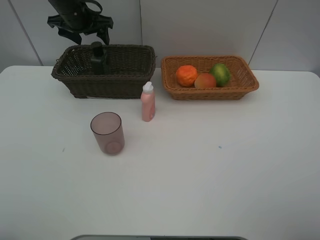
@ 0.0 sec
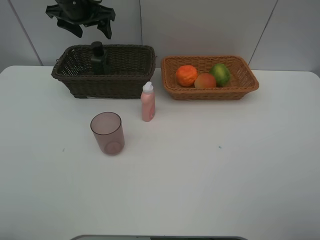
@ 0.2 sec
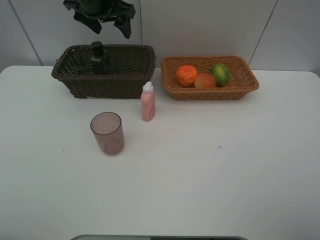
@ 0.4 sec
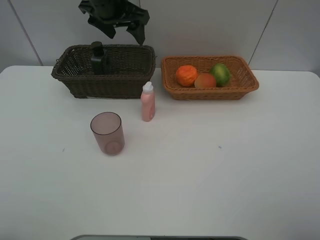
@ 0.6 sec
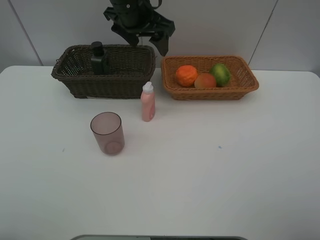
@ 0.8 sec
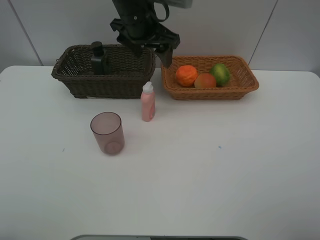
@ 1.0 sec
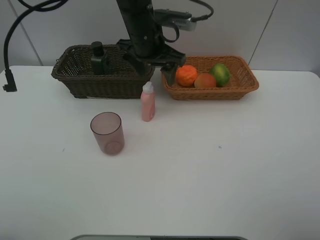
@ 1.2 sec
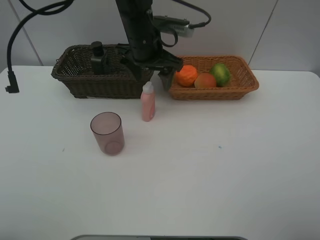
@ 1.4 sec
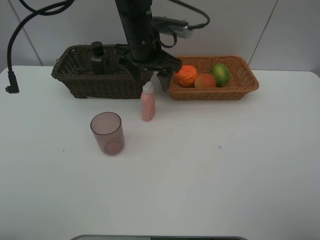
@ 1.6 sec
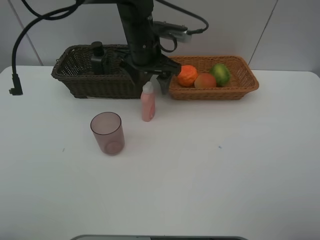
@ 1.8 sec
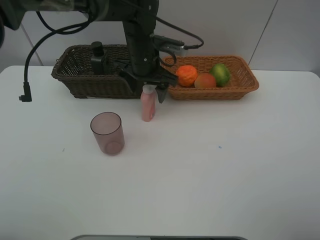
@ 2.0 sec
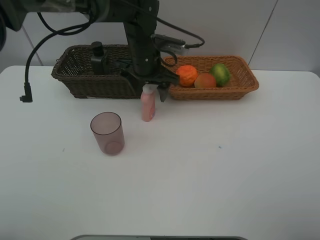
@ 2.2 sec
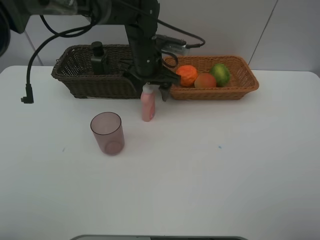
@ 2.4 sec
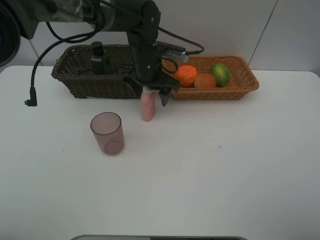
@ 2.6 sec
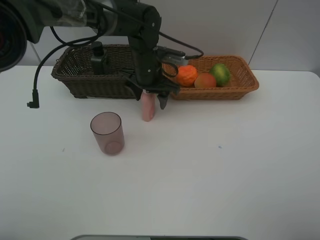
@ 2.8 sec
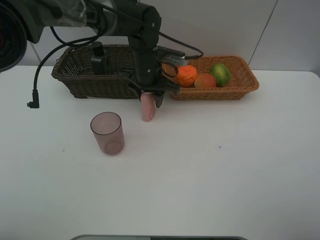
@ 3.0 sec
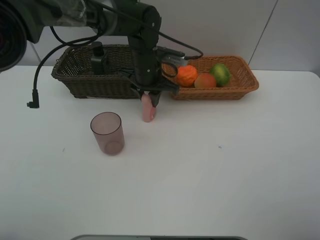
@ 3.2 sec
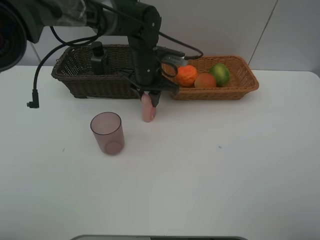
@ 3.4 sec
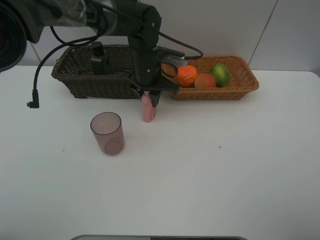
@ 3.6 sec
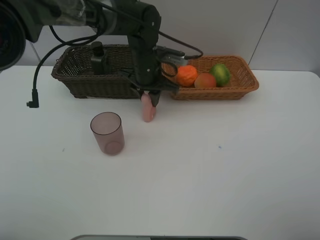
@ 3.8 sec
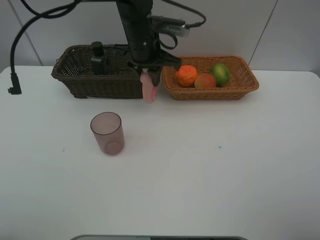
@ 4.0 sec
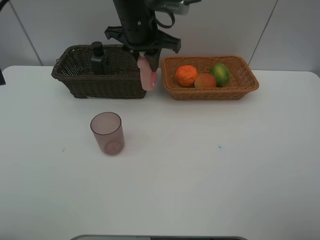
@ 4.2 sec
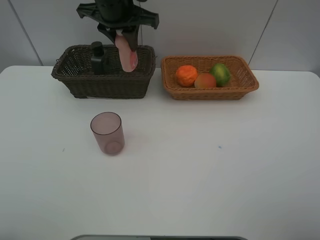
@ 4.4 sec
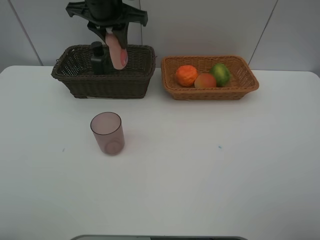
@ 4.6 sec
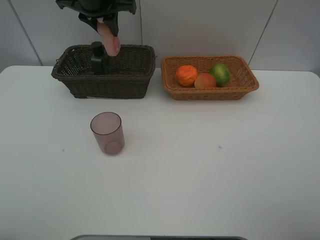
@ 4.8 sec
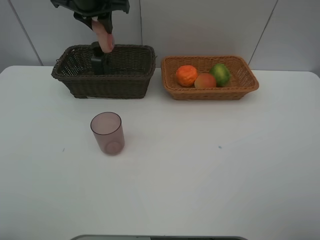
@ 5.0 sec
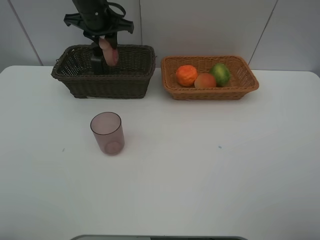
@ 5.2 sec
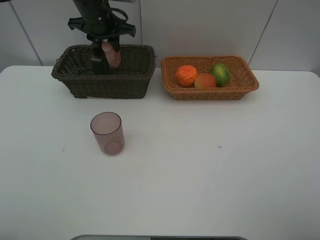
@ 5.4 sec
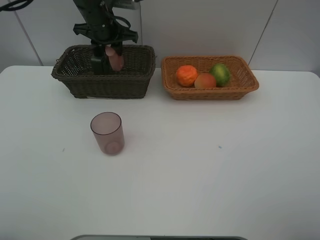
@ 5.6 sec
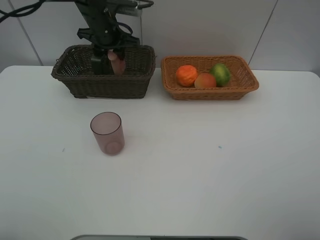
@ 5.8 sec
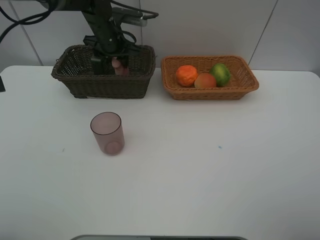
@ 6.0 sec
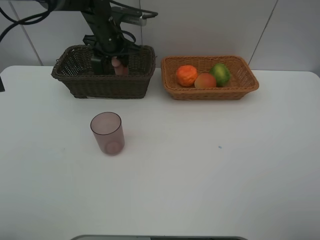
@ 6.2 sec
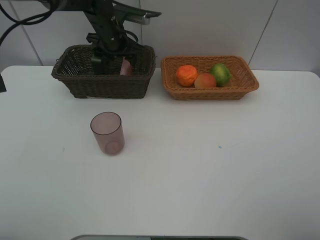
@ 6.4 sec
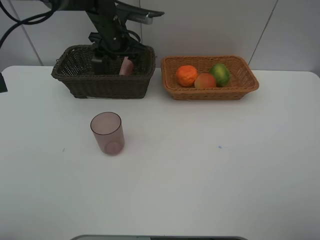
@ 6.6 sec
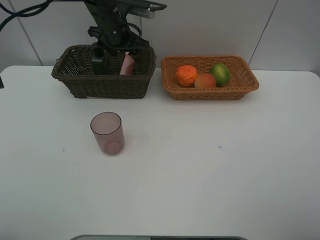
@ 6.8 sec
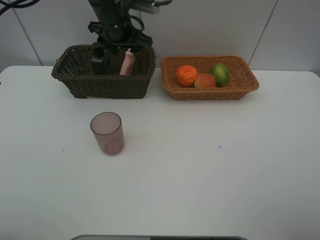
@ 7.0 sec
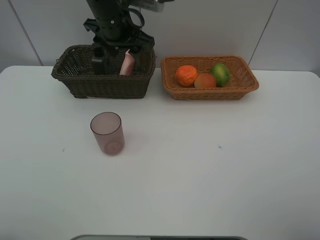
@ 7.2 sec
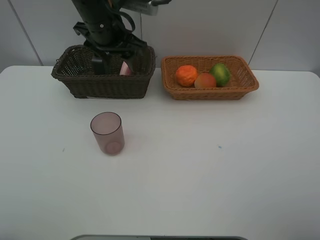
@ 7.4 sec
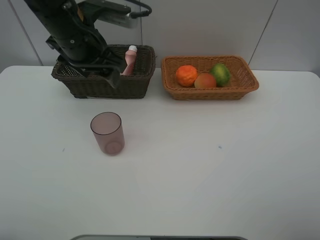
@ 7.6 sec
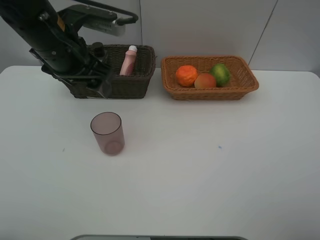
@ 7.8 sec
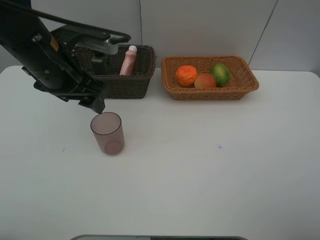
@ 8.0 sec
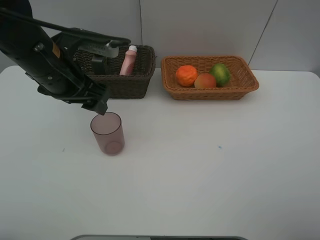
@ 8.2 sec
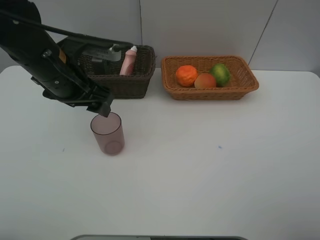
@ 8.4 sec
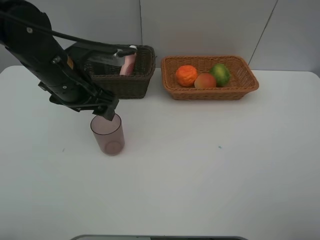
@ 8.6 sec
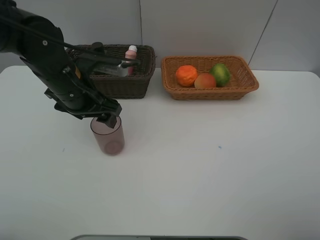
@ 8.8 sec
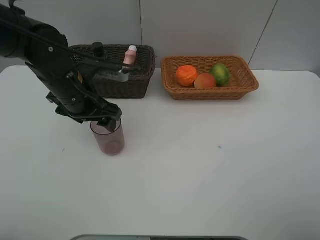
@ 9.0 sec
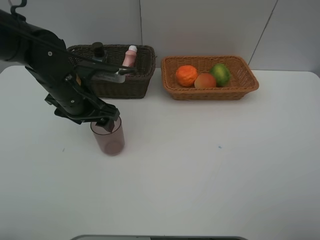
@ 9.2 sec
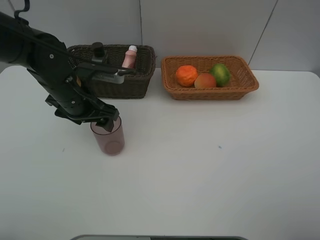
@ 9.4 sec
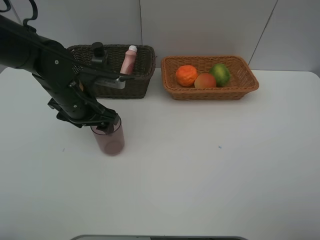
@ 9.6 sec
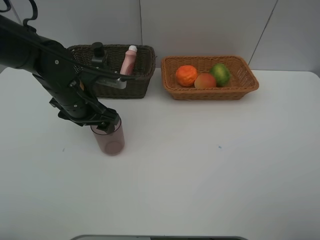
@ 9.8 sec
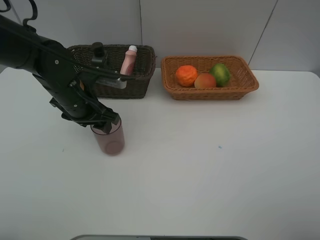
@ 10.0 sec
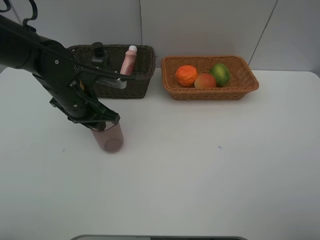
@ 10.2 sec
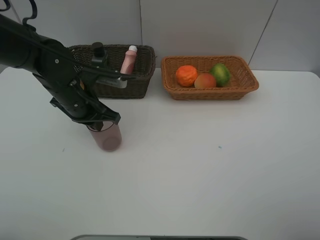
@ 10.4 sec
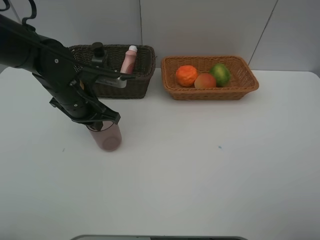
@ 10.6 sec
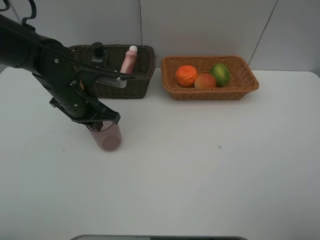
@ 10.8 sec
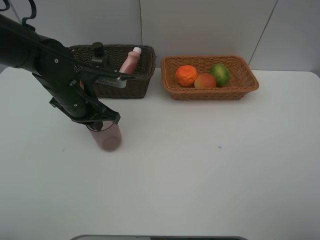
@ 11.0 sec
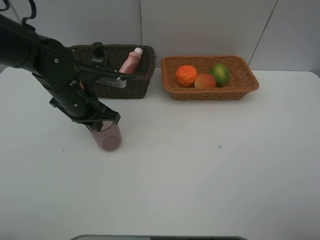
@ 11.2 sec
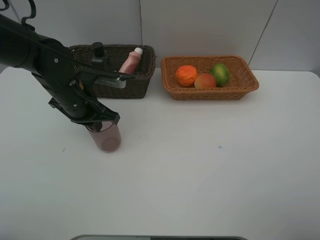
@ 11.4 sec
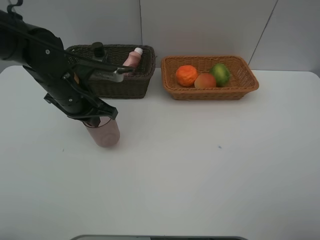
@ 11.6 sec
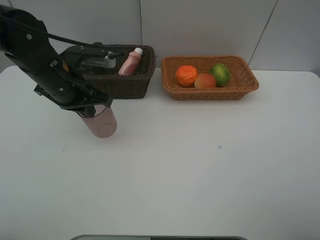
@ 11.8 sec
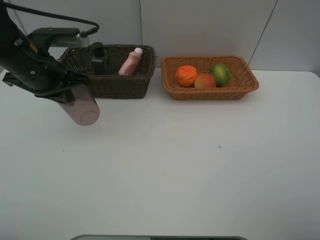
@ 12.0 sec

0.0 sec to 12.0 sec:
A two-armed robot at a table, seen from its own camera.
Task of the whole recording: place multiple objects separately in different baskets.
0.0 sec to 1.6 sec: The left gripper heads to the right and backward, covering about 20 cm.
1.6 sec to 3.0 sec: The left gripper shifts approximately 5 cm downward, and closes its fingers.
3.0 sec to 4.4 sec: The left gripper is displaced upward and to the left by roughly 15 cm.
4.4 sec to 6.0 sec: The left gripper goes approximately 15 cm downward and forward.
6.0 sec to 7.6 sec: The left gripper is displaced backward and upward by roughly 20 cm, and opens up.
7.6 sec to 9.0 sec: The left gripper is displaced downward by about 10 cm.
9.0 sec to 10.4 sec: The left gripper closes up.
10.4 sec to 12.0 sec: The left gripper shifts some 10 cm upward and to the left.

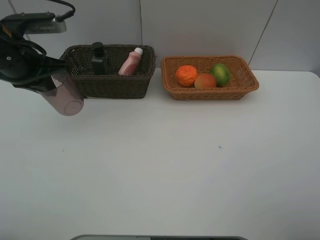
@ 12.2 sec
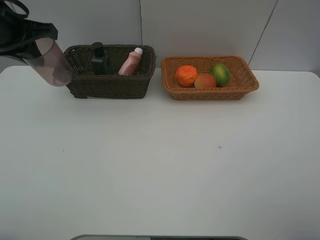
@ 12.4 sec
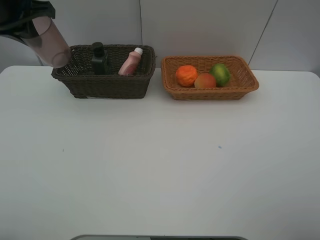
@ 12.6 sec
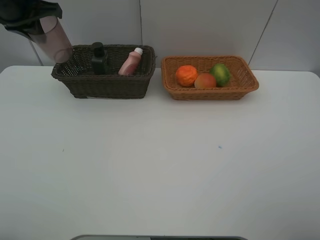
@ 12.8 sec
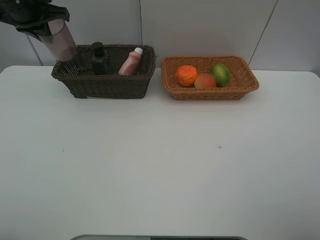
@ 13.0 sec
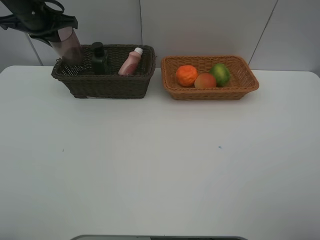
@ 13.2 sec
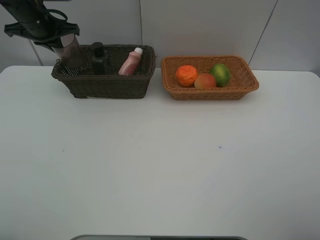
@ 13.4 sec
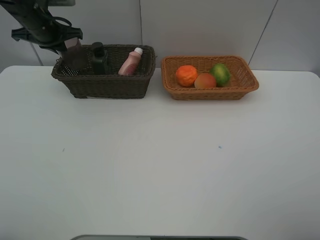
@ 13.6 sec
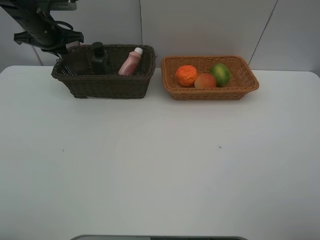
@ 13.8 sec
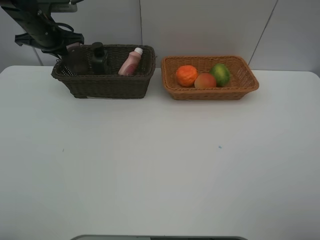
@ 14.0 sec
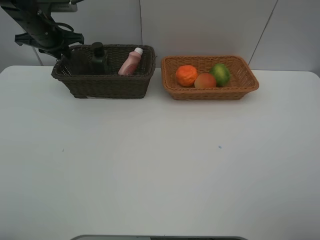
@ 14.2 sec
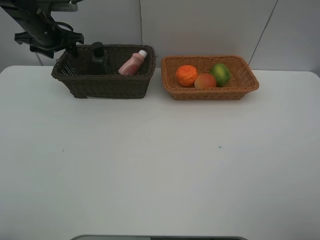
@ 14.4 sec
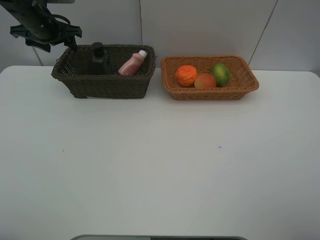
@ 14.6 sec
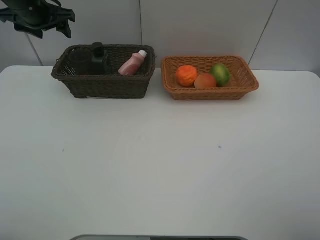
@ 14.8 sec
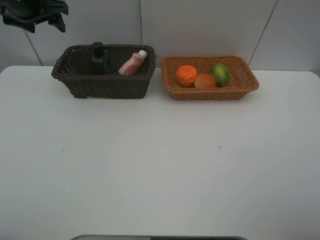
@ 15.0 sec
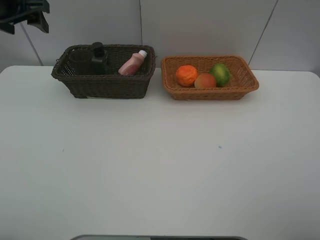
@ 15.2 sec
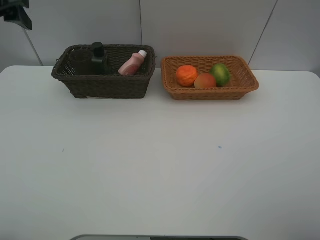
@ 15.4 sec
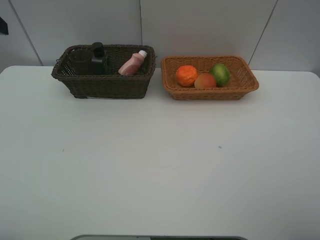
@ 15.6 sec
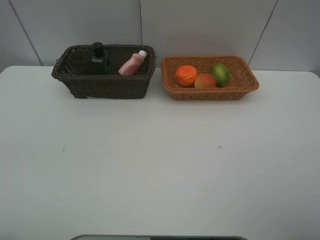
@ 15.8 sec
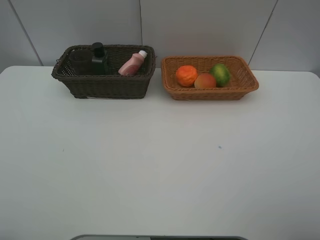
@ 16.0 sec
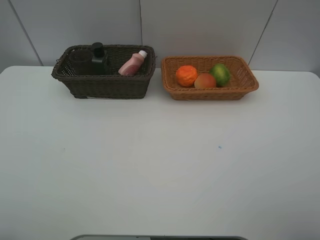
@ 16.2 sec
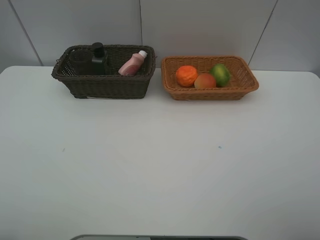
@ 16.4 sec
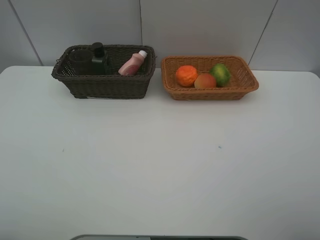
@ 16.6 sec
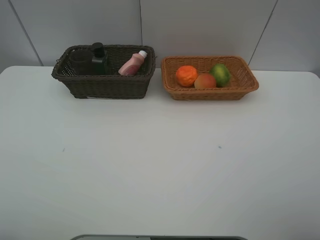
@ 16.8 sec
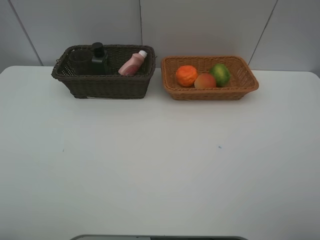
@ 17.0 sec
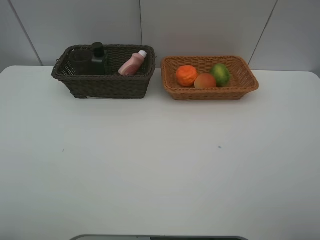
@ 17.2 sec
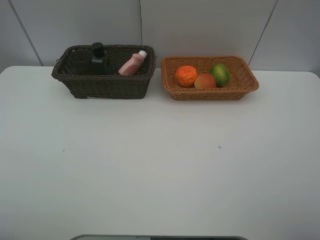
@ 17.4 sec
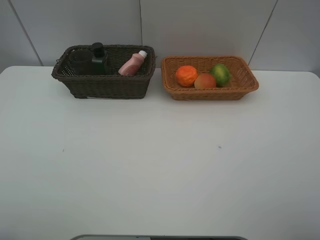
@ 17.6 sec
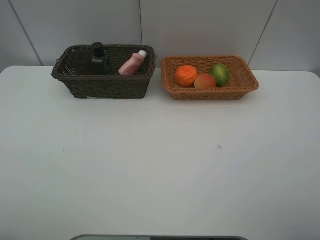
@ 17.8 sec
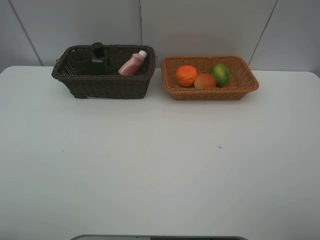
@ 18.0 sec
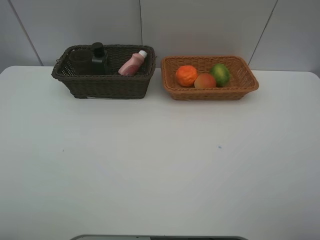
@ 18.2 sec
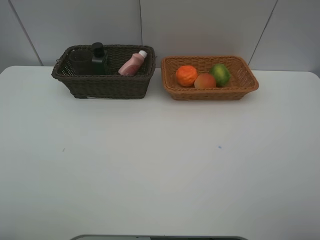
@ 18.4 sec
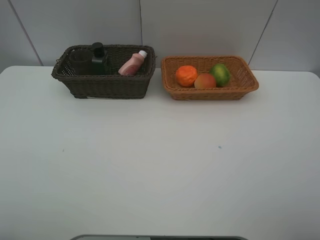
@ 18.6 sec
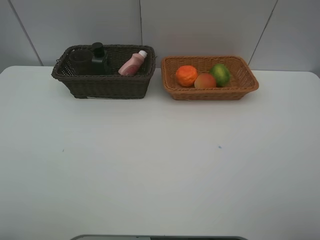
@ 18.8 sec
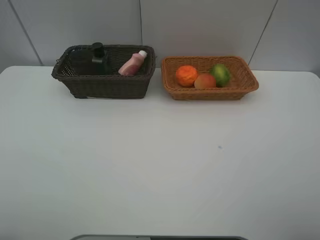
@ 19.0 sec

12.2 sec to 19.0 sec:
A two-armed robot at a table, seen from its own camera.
Task of the whole recording: place multiple objects separately in different baskets.
12.2 sec to 13.6 sec: The left gripper is displaced forward by some 15 cm.
13.6 sec to 15.0 sec: The left gripper is displaced upward by about 5 cm, and opens up.
15.0 sec to 16.2 sec: The left gripper goes approximately 40 cm backward.
